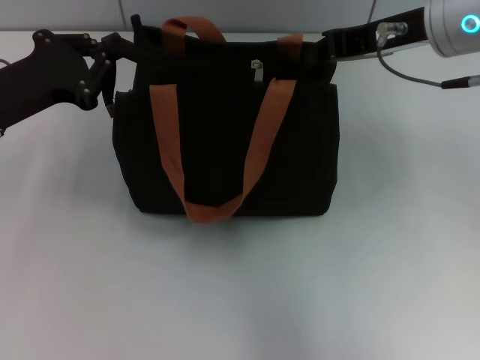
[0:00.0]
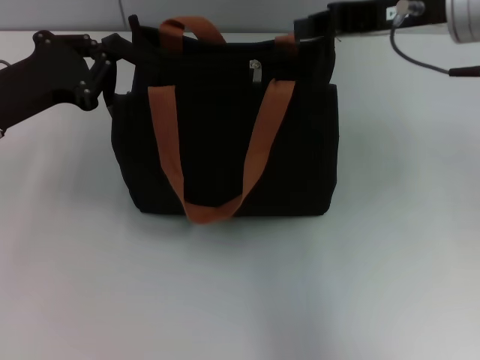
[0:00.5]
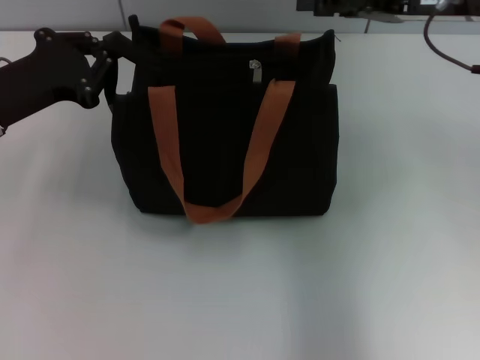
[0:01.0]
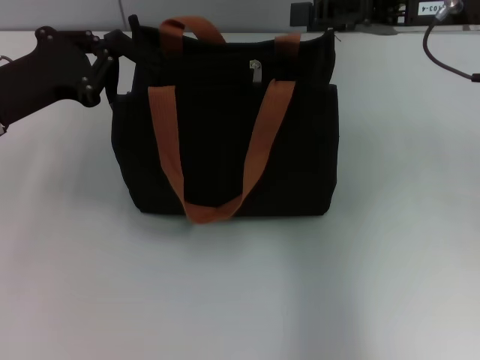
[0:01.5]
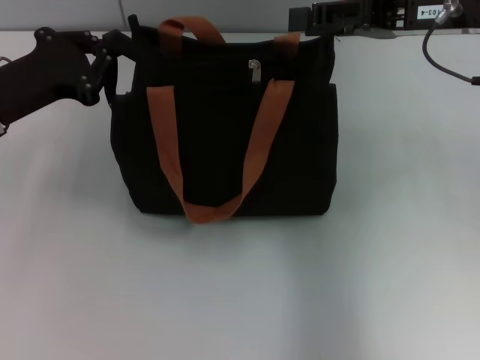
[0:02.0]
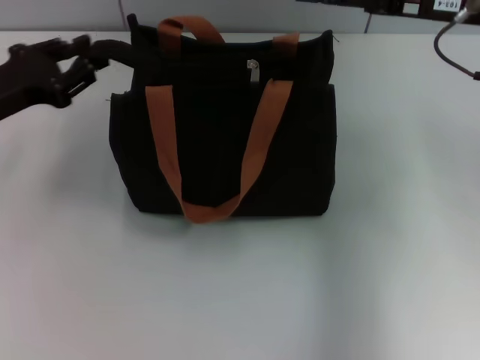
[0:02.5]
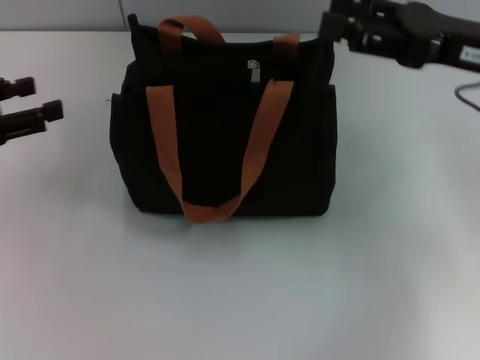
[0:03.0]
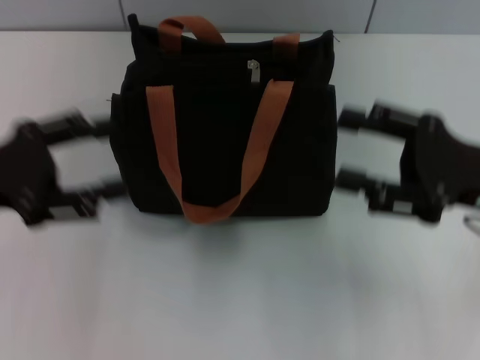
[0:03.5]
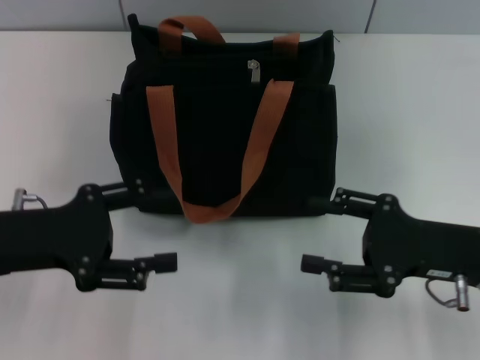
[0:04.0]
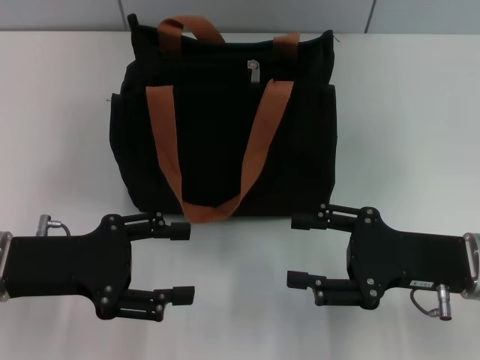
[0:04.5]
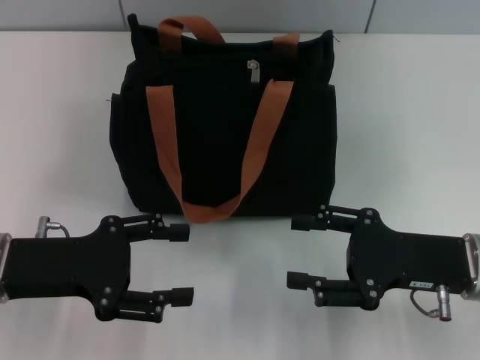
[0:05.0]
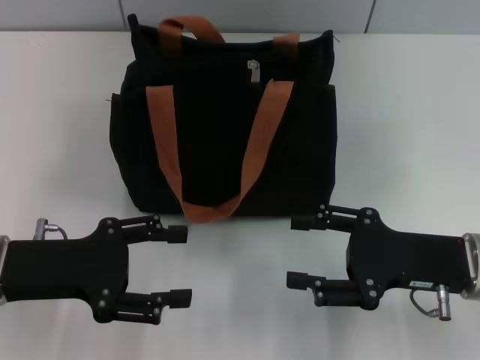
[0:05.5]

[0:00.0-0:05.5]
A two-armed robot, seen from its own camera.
Step, 0:00.5 to 0:02.5: Grab the zipper with your left hand.
0:00.0 to 0:02.0: The right gripper opens.
0:02.0 to 0:03.5: The left gripper is displaced backward by roughly 5 cm, and opens. The right gripper heads downward and backward, covering some 15 cm.
0:03.5 to 0:05.5: Both grippers move downward, some 5 cm.
